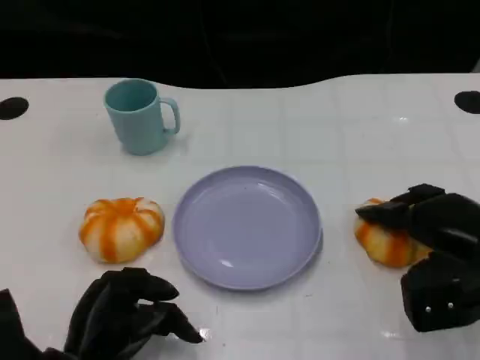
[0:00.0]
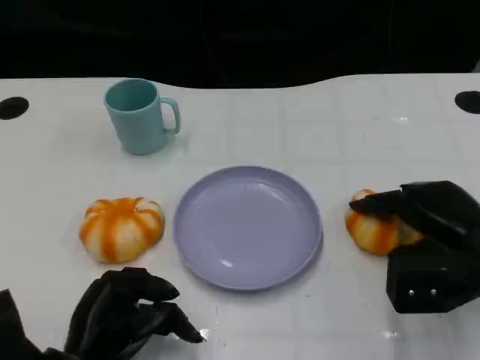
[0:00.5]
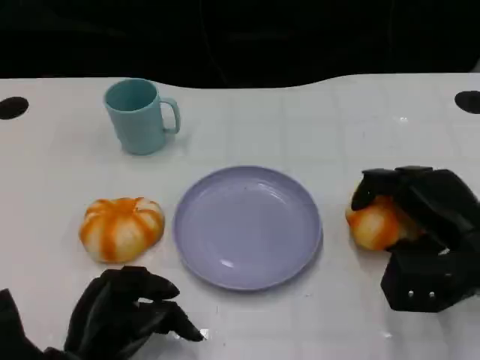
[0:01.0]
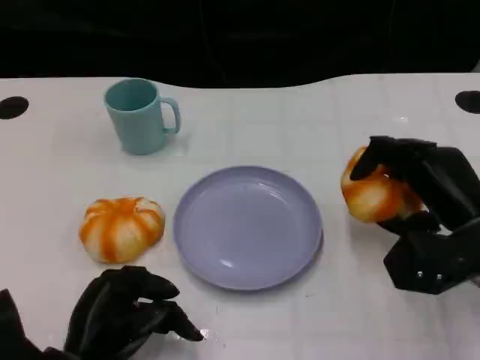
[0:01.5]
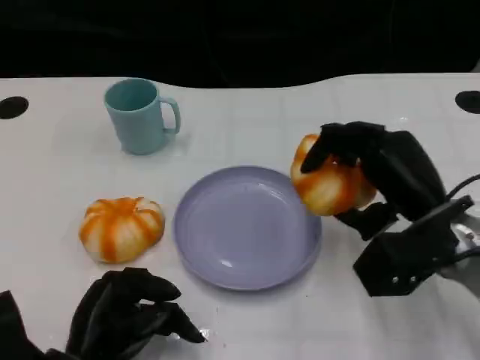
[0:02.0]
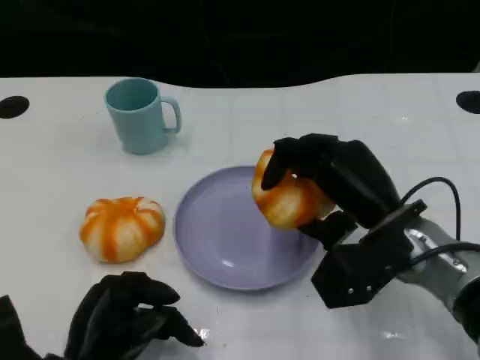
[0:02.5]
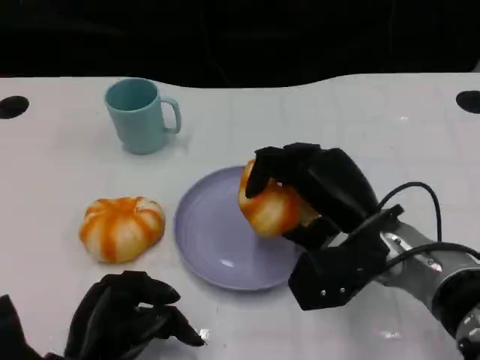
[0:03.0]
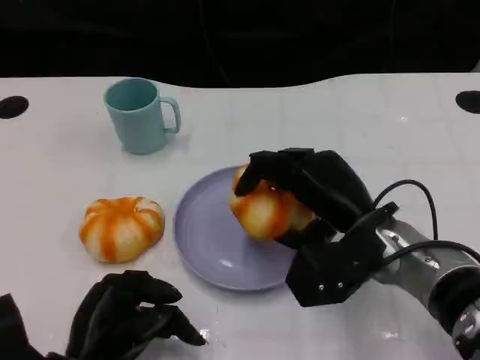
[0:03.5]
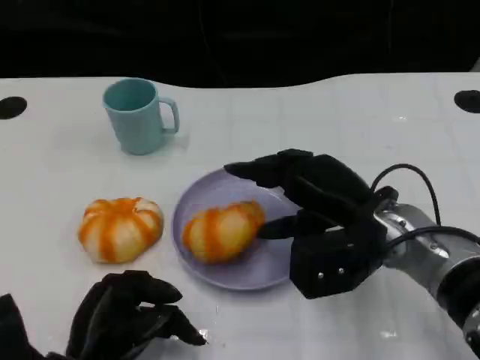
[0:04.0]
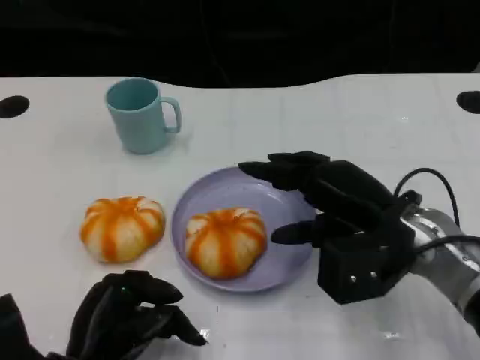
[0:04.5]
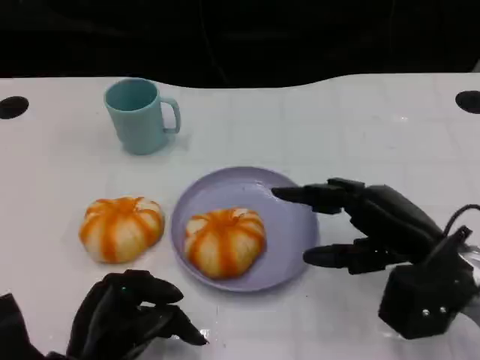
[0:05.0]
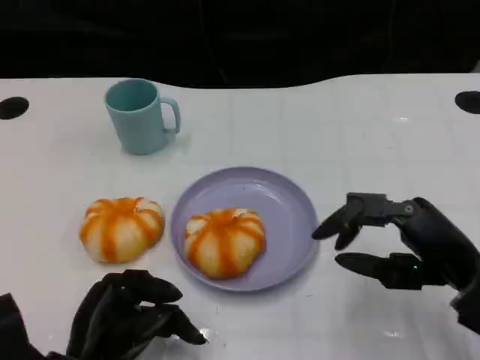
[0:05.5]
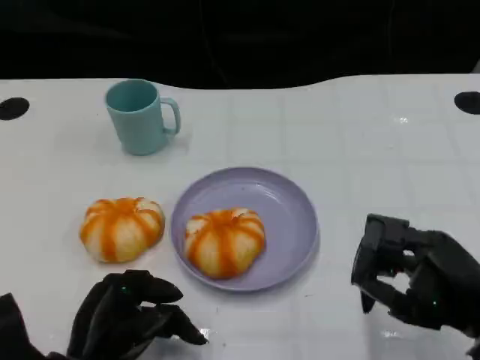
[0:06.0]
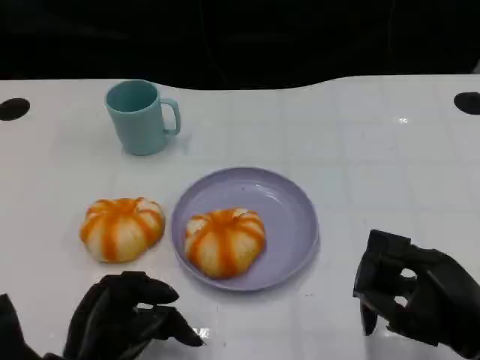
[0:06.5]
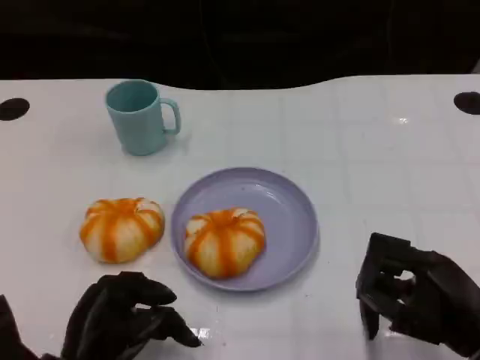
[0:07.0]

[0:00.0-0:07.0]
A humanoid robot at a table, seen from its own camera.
Task of the whole recording: Grasp the bread from the table and place it into the plate.
0:00.0 to 0:02.0: The right hand is displaced to the left by some 5 cm.
0:02.0 to 0:03.5: The right hand travels to the left by about 5 cm.
0:03.5 to 0:05.0: The right hand heads to the right, covering roughly 10 cm.
0:05.0 to 0:07.0: The right hand travels backward by some 5 cm.

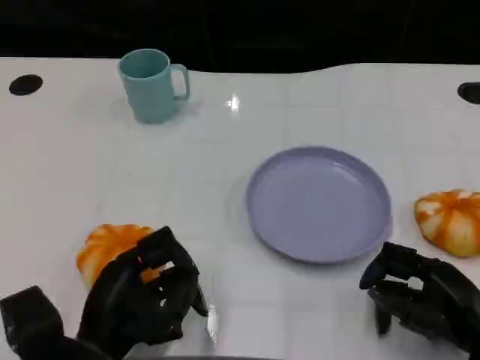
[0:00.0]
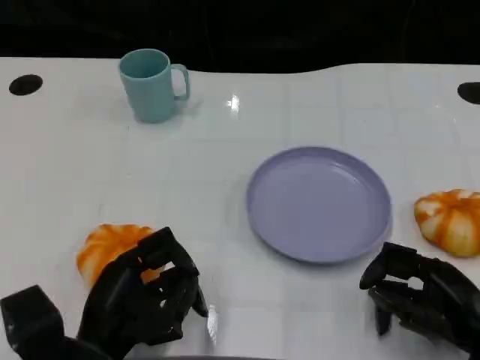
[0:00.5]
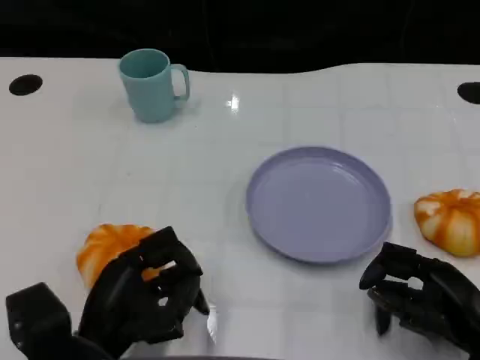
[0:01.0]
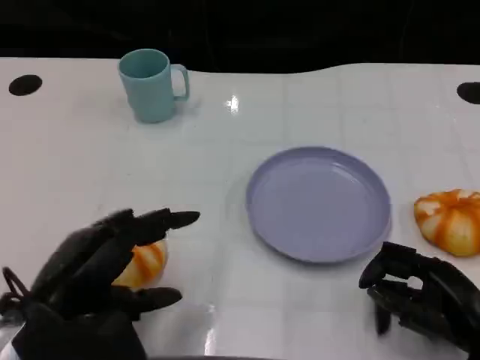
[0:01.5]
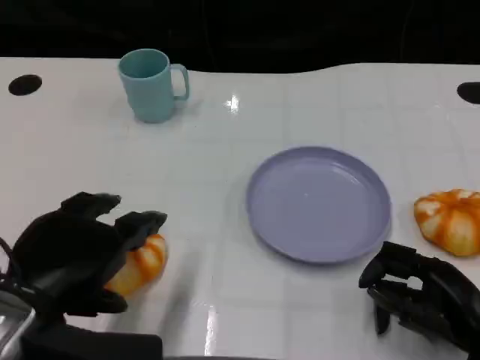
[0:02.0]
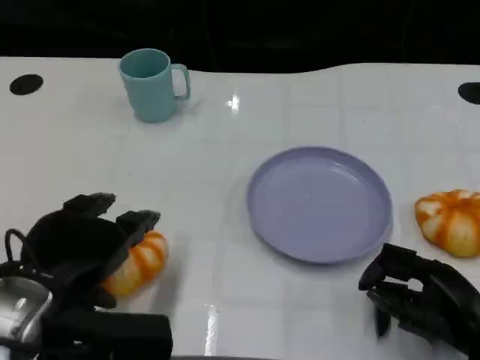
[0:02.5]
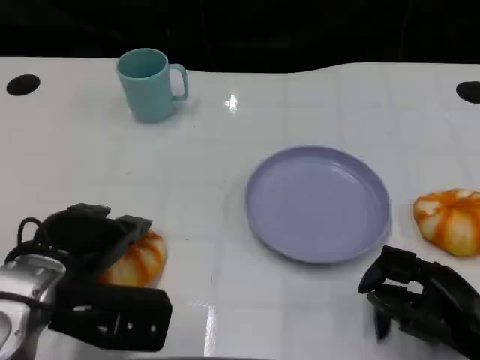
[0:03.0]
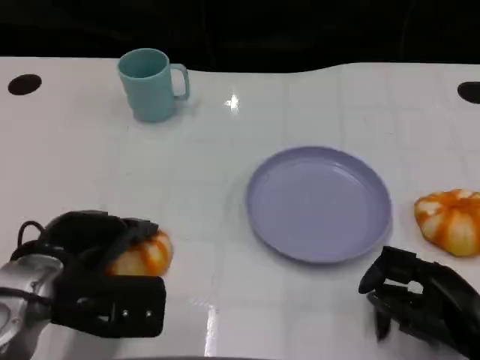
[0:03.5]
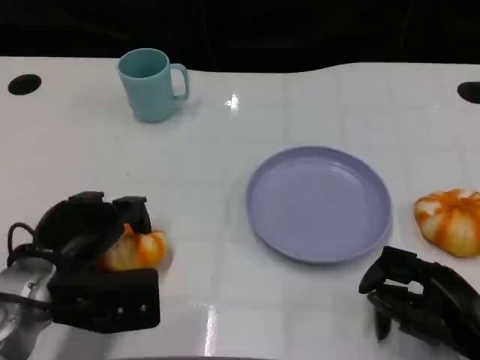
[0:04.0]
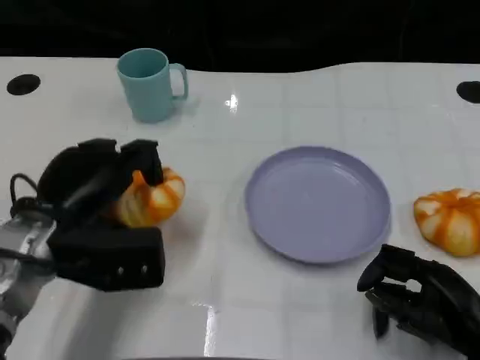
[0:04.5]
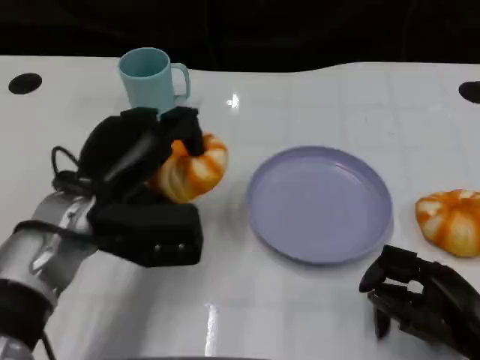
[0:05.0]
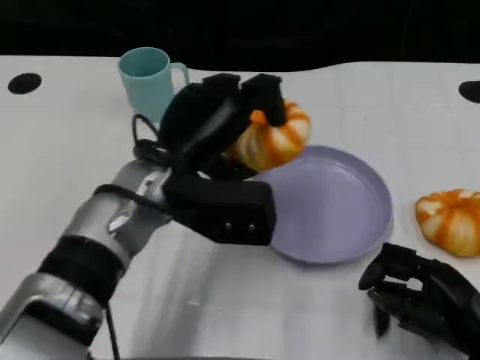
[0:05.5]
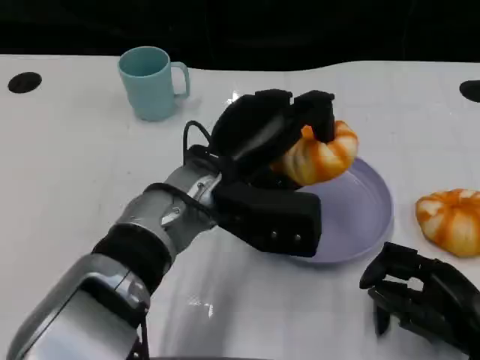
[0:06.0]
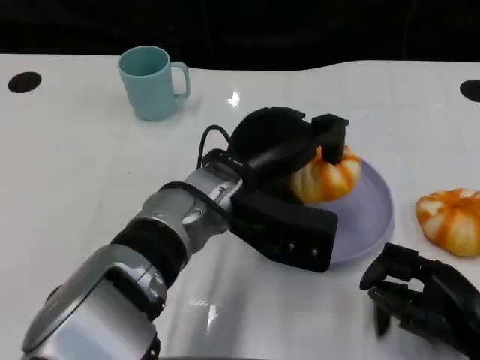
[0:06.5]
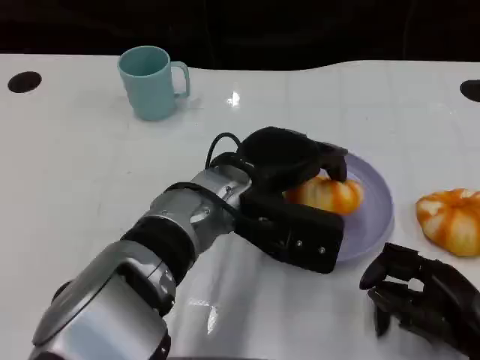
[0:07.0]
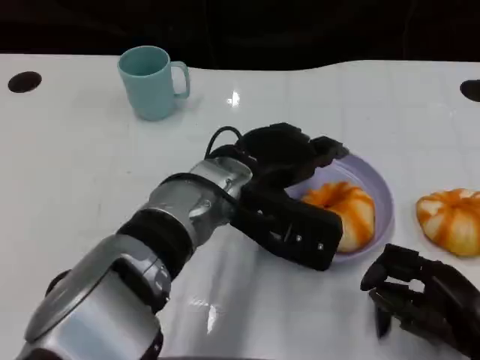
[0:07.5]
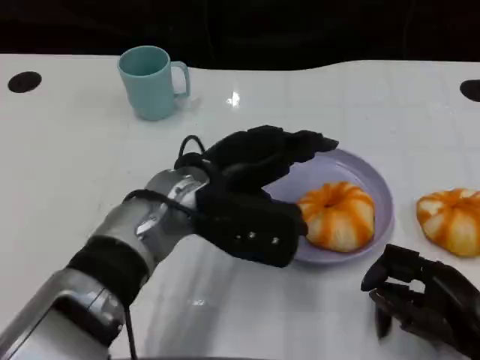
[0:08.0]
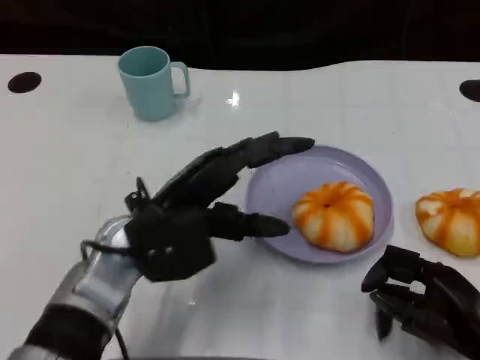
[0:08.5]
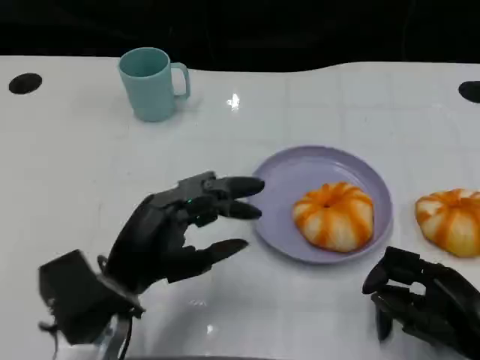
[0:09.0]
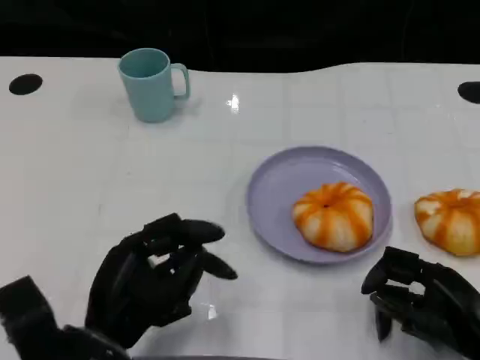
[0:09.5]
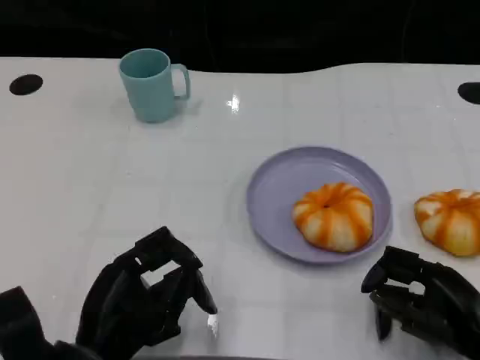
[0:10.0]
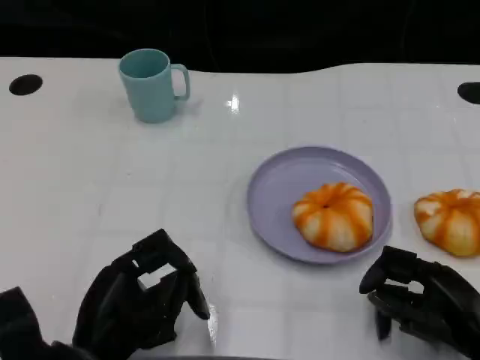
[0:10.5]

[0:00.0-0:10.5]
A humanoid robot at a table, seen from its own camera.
Task of the whole recording: Grasp the bread from the table and place it into the plate.
0:00.0 to 0:02.0: The left hand is displaced upward by some 10 cm.
0:02.0 to 0:04.0: The left hand heads forward and downward, covering some 10 cm.
0:04.0 to 0:06.5: The left hand goes about 20 cm to the right.
0:06.5 to 0:08.5: The left hand is displaced to the left by some 10 cm.
0:08.5 to 0:10.5: The left hand heads backward, downward and to the left, covering some 15 cm.

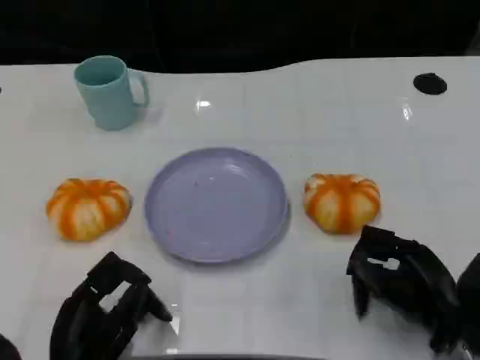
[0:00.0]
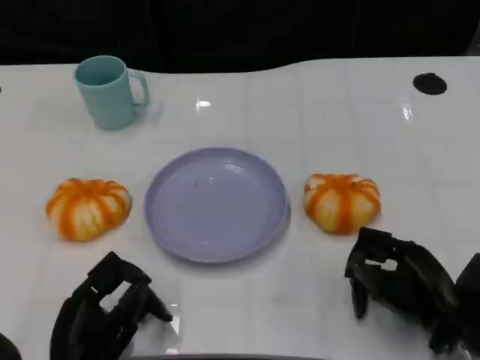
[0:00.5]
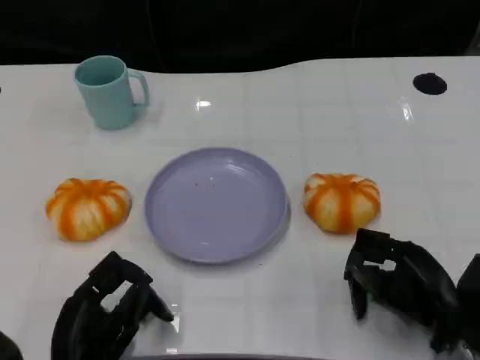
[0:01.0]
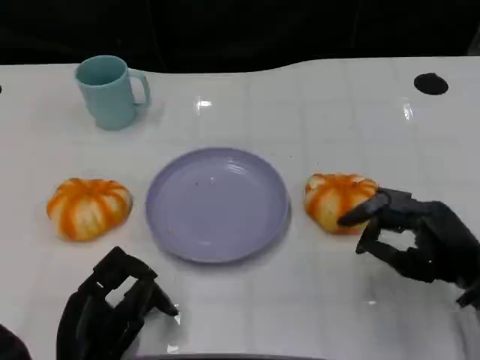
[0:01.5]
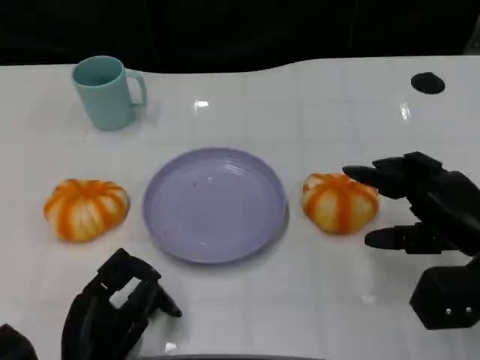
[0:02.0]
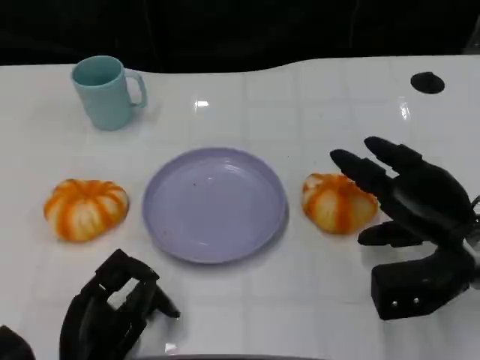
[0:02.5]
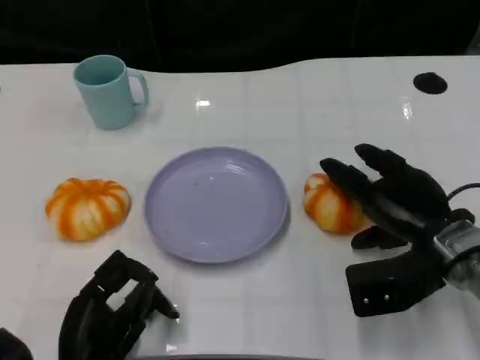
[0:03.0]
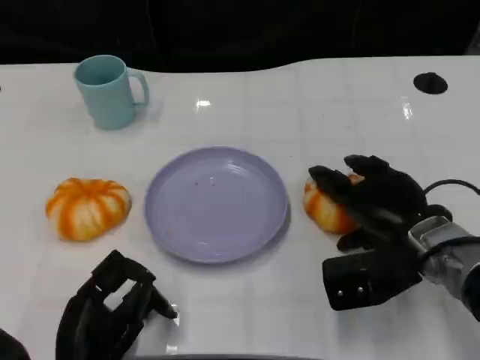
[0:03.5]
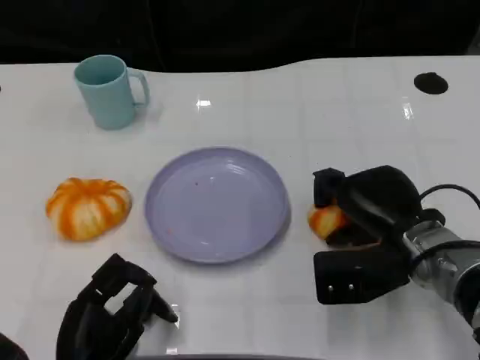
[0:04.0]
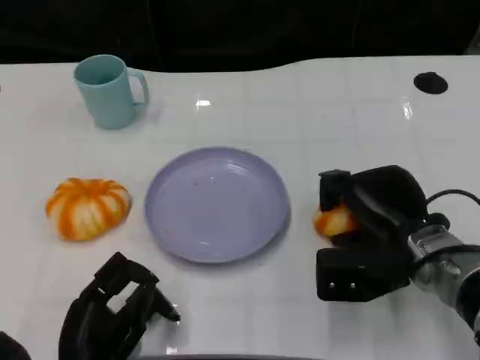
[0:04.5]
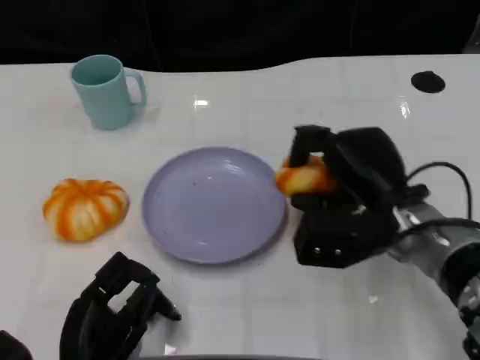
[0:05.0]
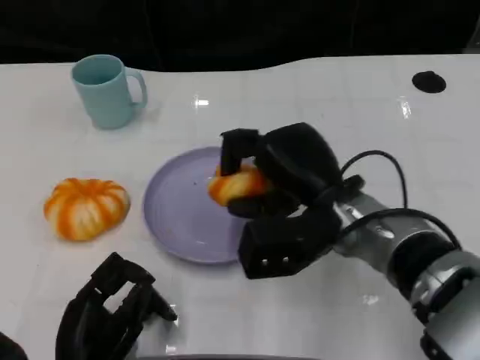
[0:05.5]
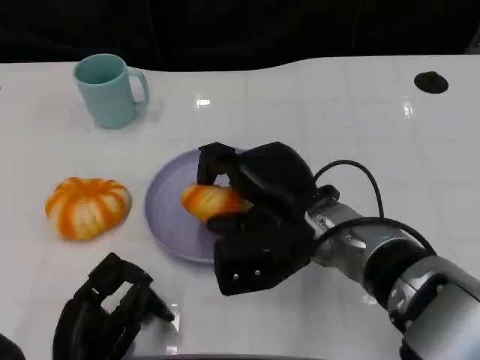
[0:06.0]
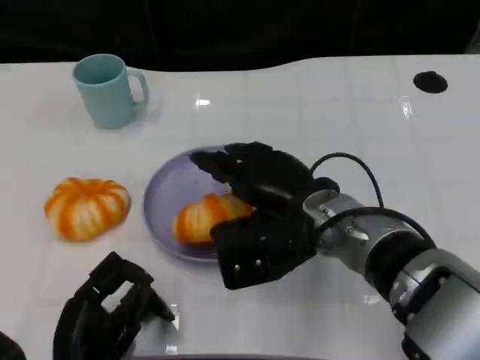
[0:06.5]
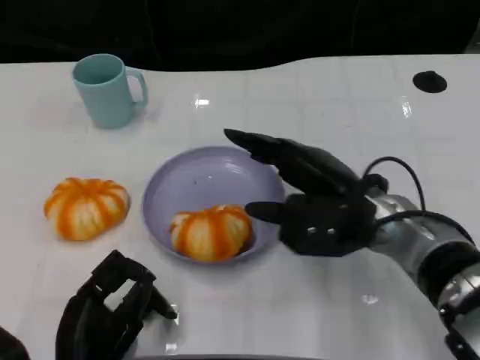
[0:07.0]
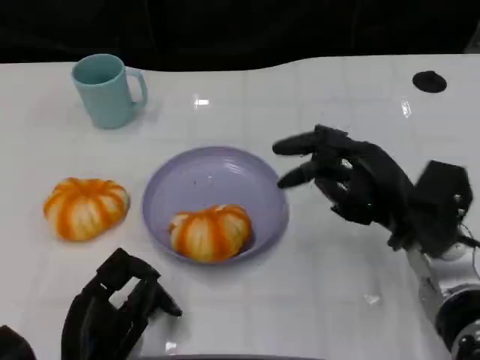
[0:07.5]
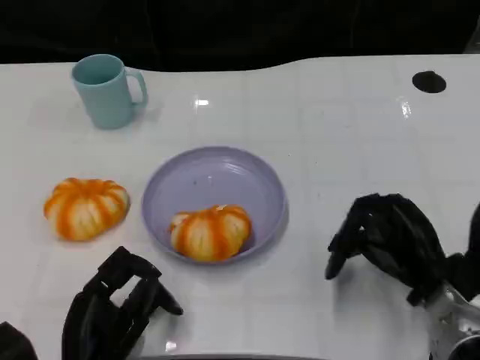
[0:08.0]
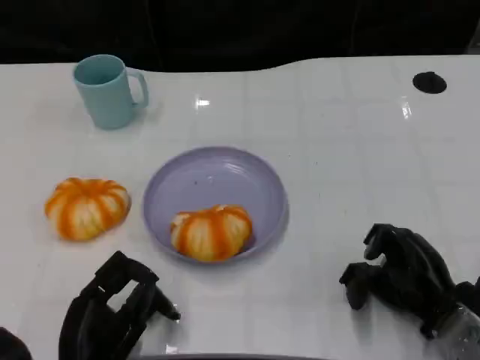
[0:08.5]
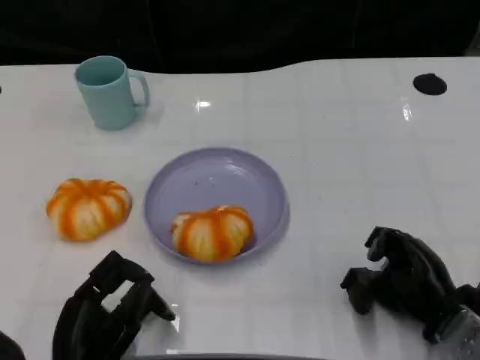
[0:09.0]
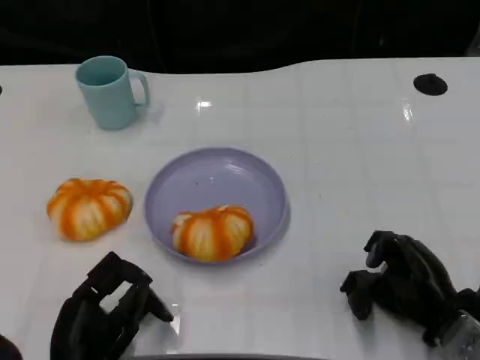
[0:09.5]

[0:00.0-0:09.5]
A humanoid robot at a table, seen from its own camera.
Task of the whole recording: Grasp the bread from the table and place it into the plate.
0:00.0 to 0:02.0: The right hand travels upward by roughly 5 cm.
0:02.0 to 0:04.0: The right hand heads to the left, covering approximately 5 cm.
0:04.0 to 0:05.5: The right hand heads to the left, covering about 10 cm.
0:05.5 to 0:07.5: The right hand heads to the right, covering roughly 10 cm.
0:07.5 to 0:09.5: The right hand is displaced downward and backward by approximately 10 cm.
